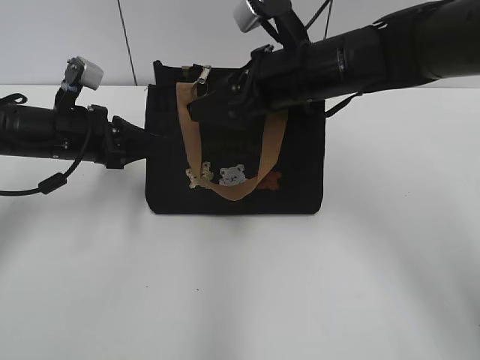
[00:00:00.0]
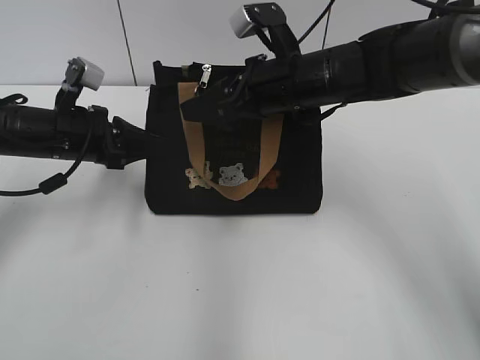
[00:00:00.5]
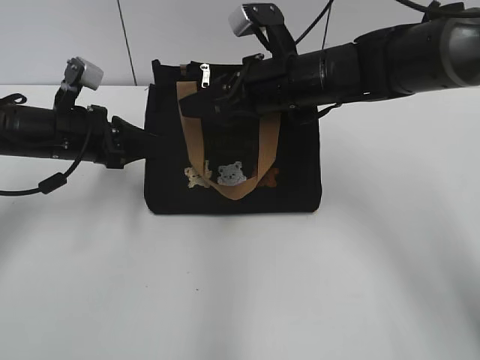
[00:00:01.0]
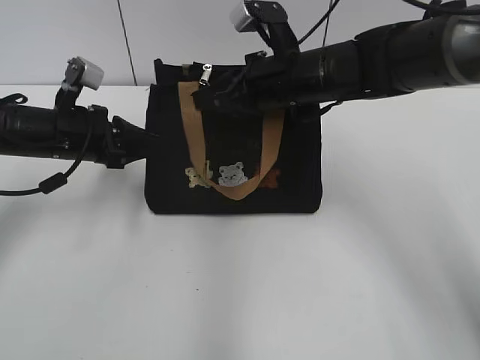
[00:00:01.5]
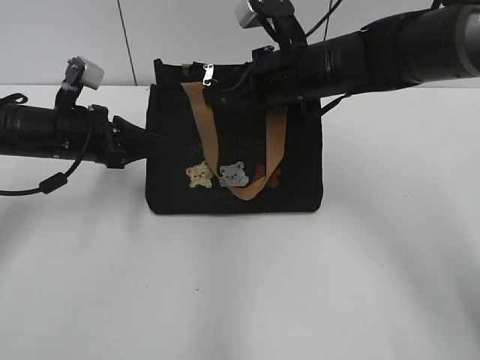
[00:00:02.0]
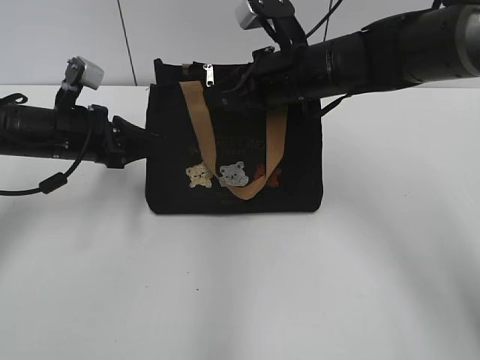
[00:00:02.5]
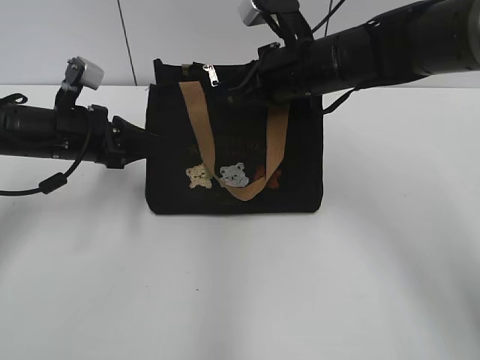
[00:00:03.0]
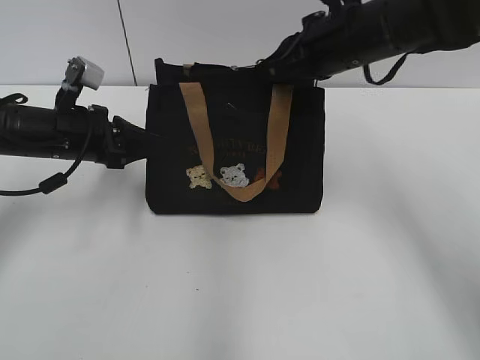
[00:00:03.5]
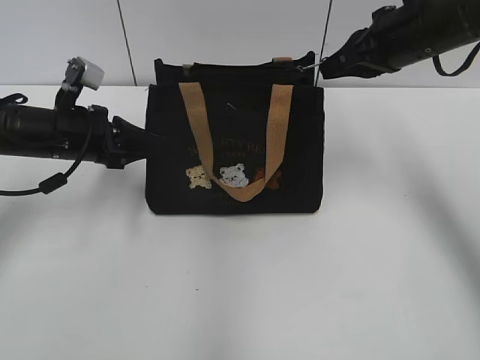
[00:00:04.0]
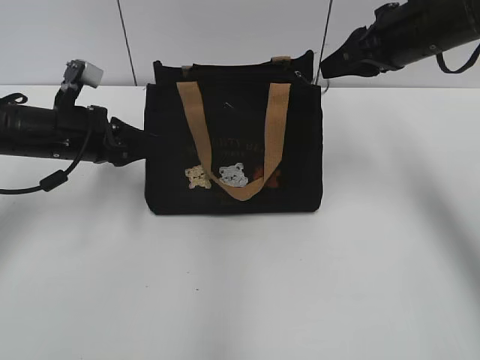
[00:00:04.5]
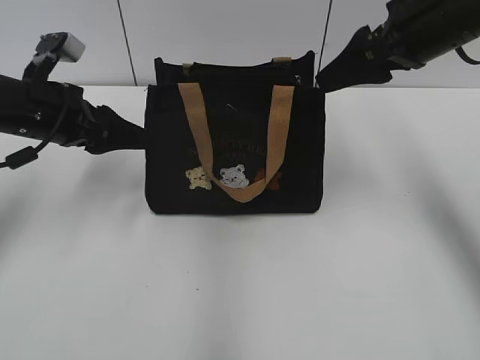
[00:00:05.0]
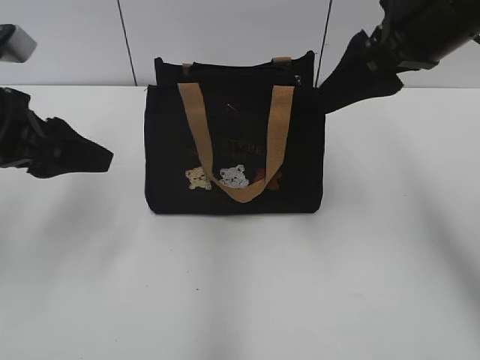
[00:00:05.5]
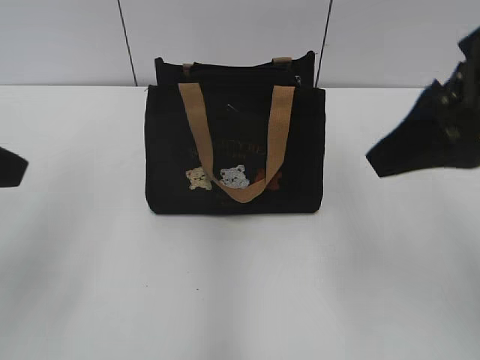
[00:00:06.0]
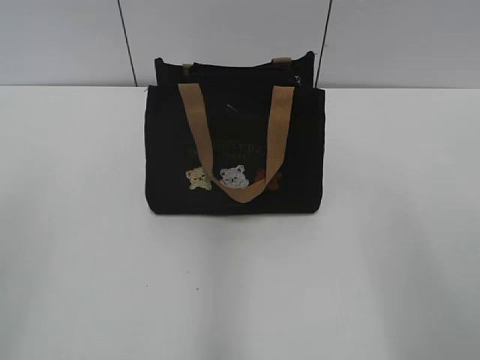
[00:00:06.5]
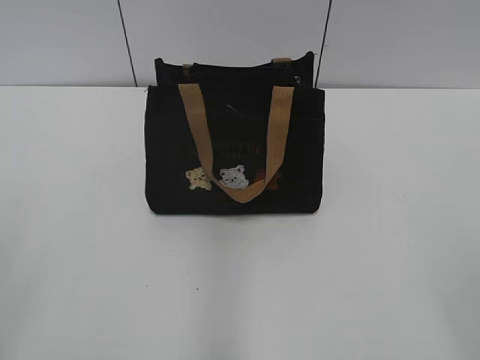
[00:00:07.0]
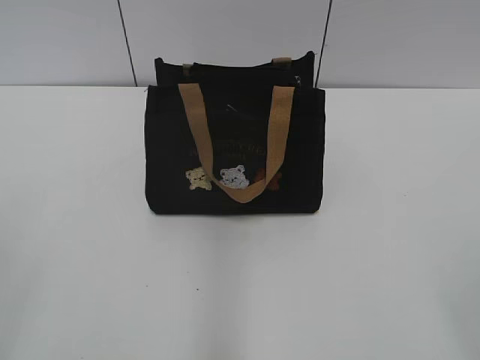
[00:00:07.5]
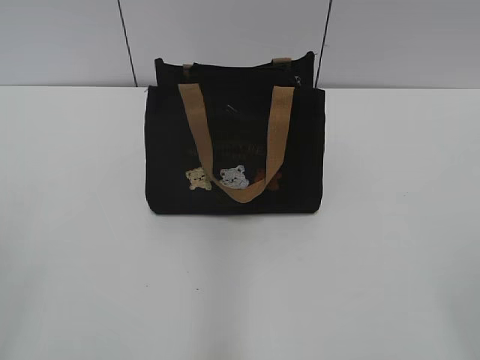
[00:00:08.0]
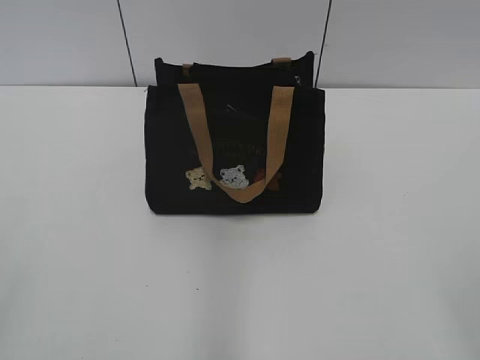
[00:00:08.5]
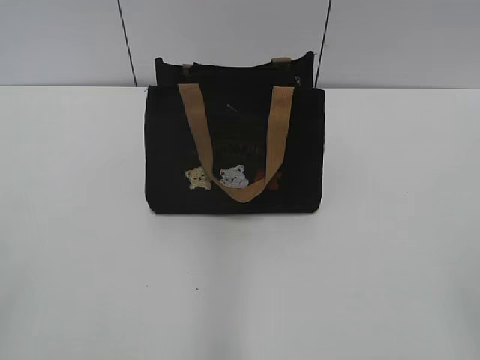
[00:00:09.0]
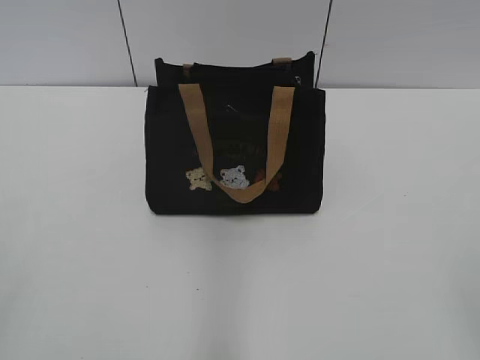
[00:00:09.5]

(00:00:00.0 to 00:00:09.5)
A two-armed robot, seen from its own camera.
Step, 00:00:00.0 - 00:00:04.5: Pull open the zipper with your right hand.
Step, 00:00:05.0 - 00:00:05.5: Hold the bag with your left hand.
00:00:00.0 - 00:00:02.0: The right gripper closes up.
00:00:02.0 - 00:00:04.0: The right gripper travels to the right and upward by about 15 cm.
00:00:04.0 - 00:00:05.5: The two grippers go approximately 10 cm backward and upward. The left gripper opens its fingers, while the right gripper opens.
00:00:05.5 - 00:00:07.5: Both grippers travel together backward, some 25 cm.
